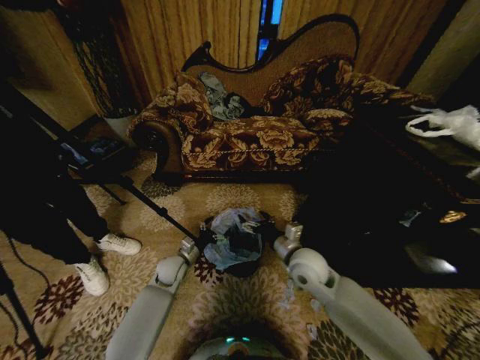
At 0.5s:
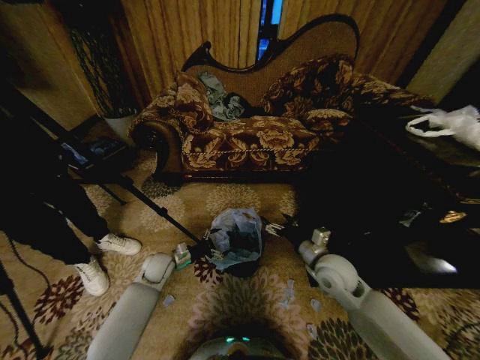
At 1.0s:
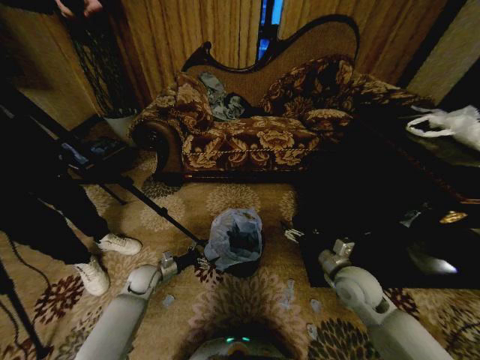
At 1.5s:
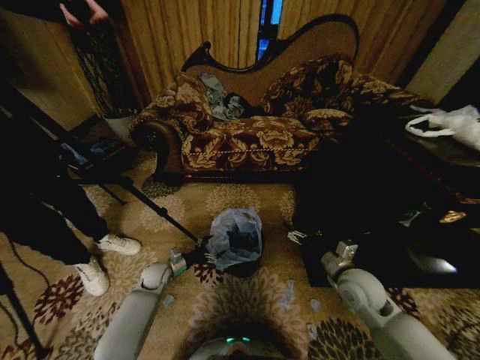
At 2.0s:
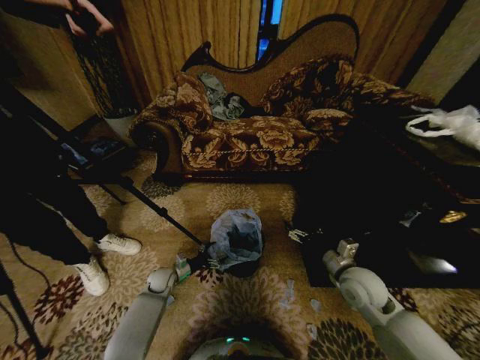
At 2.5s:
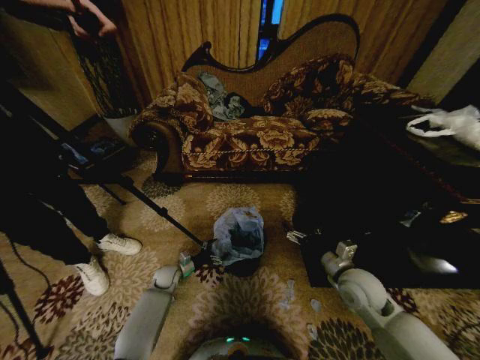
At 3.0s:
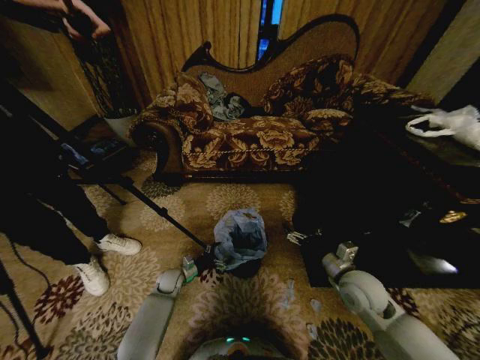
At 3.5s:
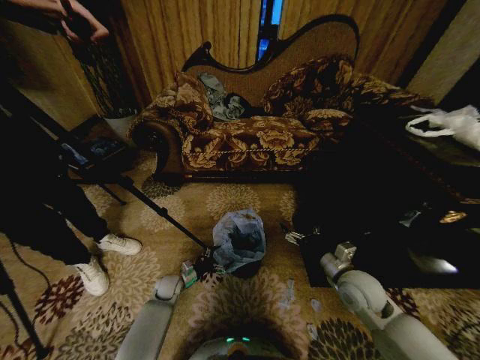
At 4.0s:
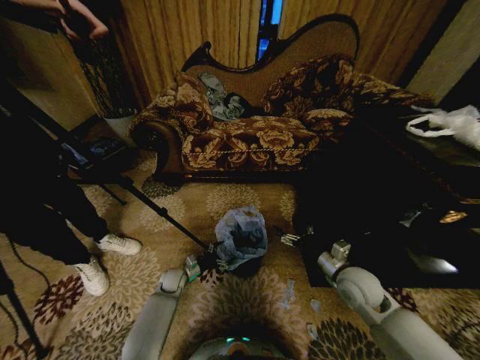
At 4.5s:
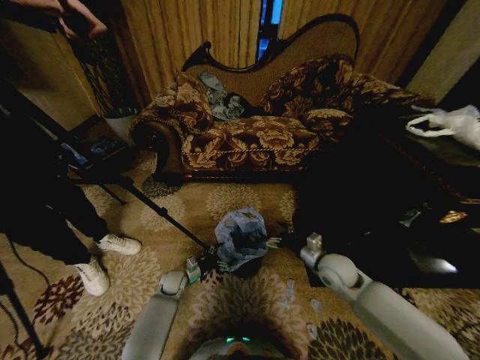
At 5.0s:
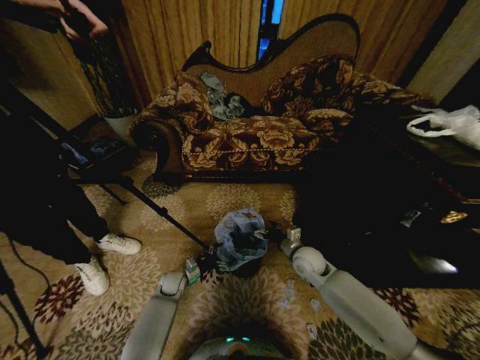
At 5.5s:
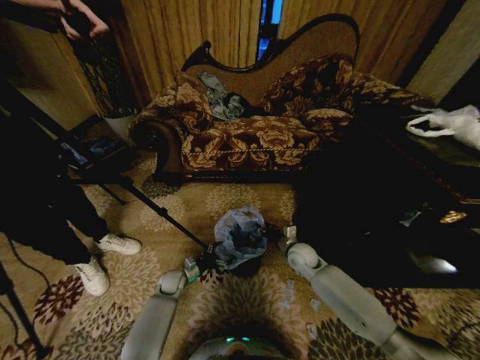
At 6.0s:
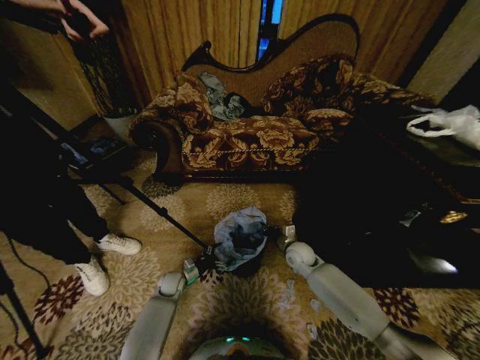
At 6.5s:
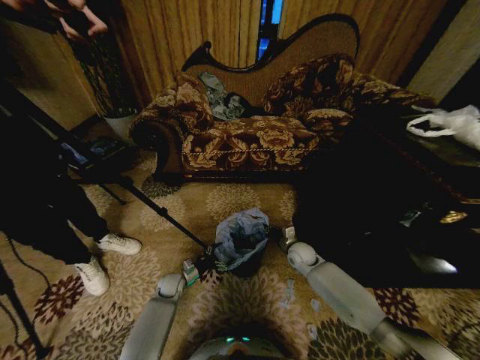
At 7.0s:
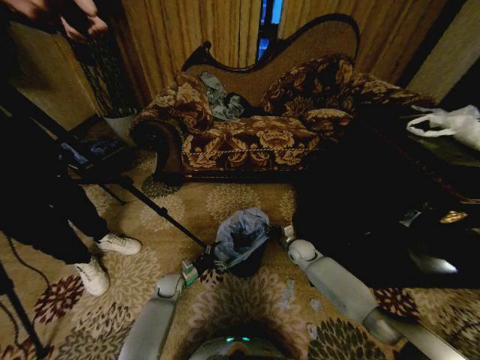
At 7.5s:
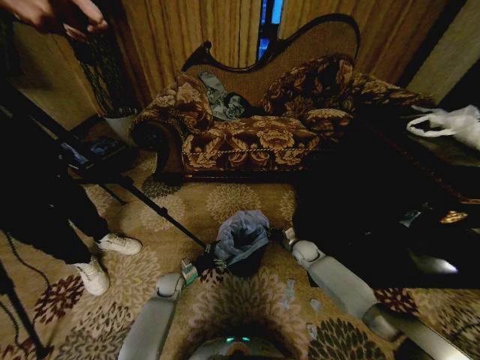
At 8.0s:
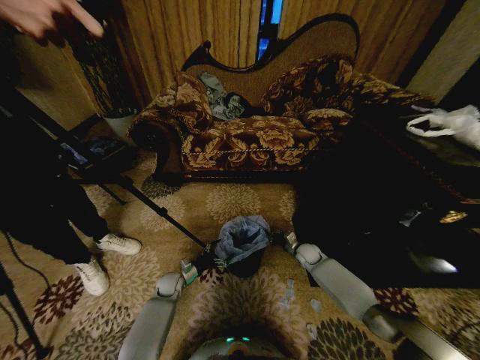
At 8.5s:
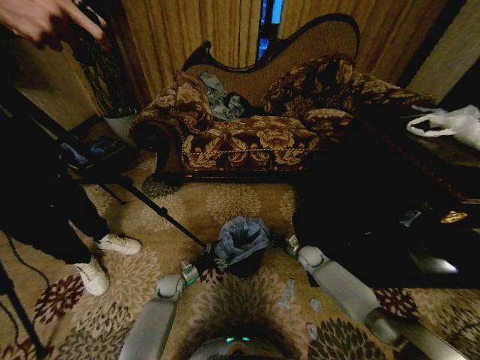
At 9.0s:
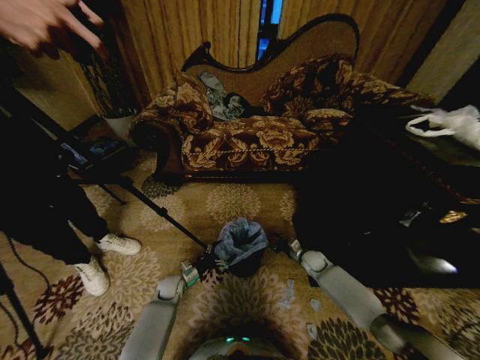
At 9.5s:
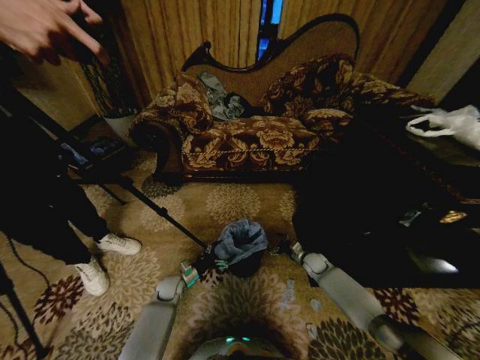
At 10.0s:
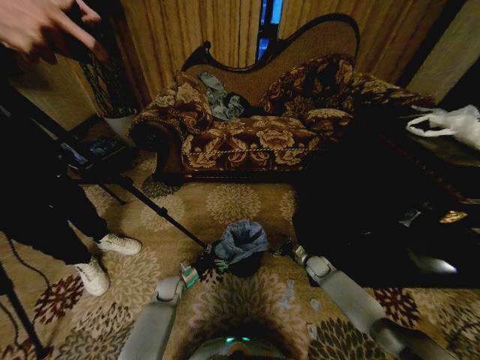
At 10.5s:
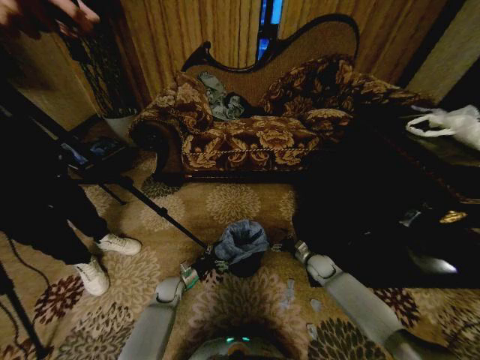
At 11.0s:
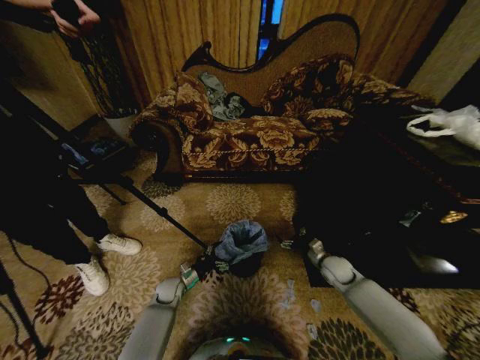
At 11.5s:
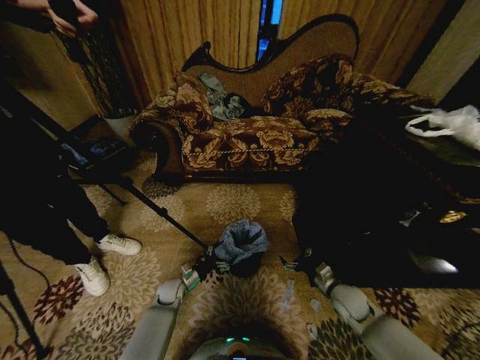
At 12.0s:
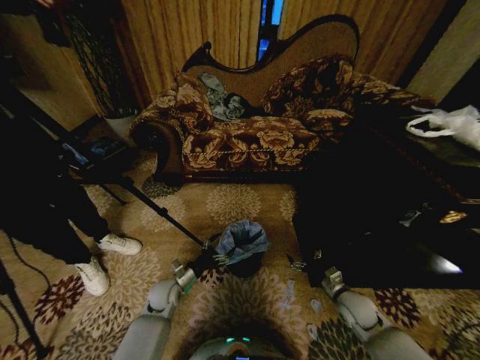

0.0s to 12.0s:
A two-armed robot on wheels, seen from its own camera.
Task of the whole recording: Place a garbage bag over the trash bin.
0.0s to 2.0s: The left gripper travels downward and to the left by approximately 10 cm, while the right gripper heads to the right, covering about 15 cm.
2.0s to 4.0s: There are only small adjustments of the grippers.
4.0s to 6.0s: The right gripper travels forward, to the left and downward by some 20 cm, and closes up.
6.0s to 8.0s: The right gripper moves downward and to the right, roughly 10 cm.
8.0s to 10.0s: The right gripper changes place by about 5 cm, and opens its fingers.
10.0s to 12.0s: The right gripper heads backward and upward, covering roughly 20 cm; the left gripper heads upward, covering roughly 10 cm.

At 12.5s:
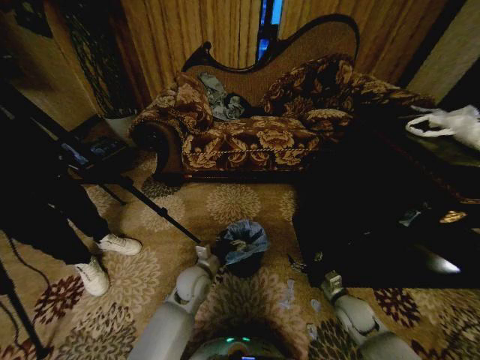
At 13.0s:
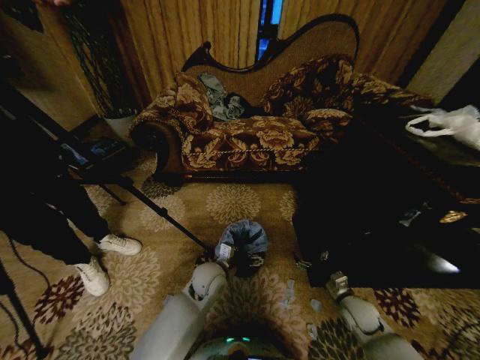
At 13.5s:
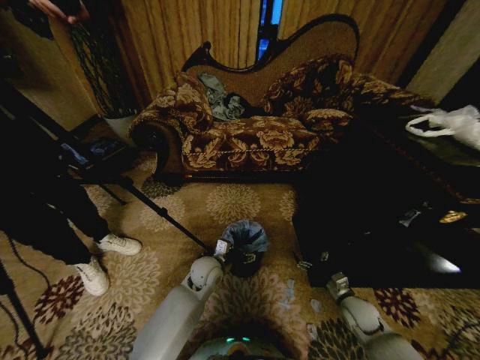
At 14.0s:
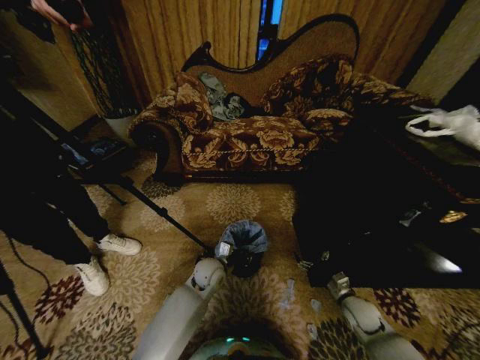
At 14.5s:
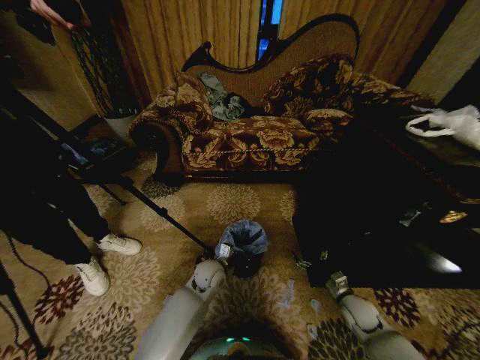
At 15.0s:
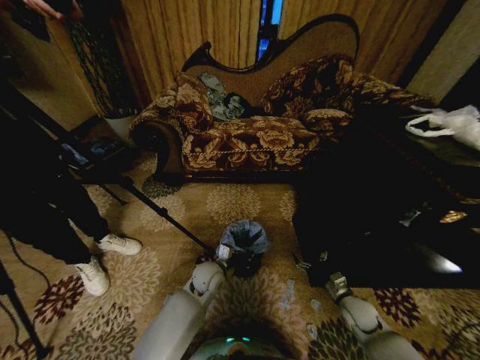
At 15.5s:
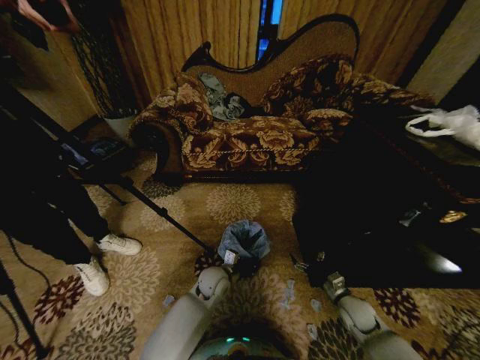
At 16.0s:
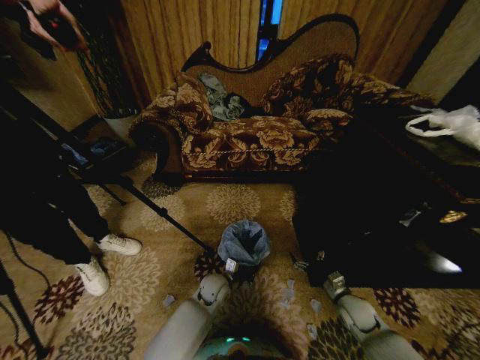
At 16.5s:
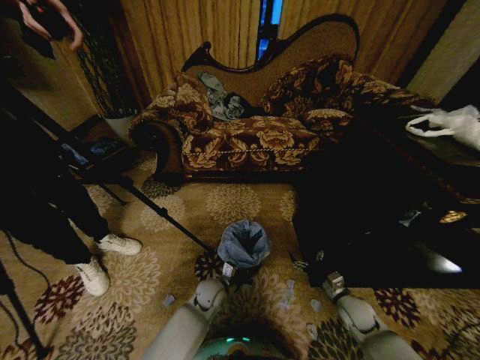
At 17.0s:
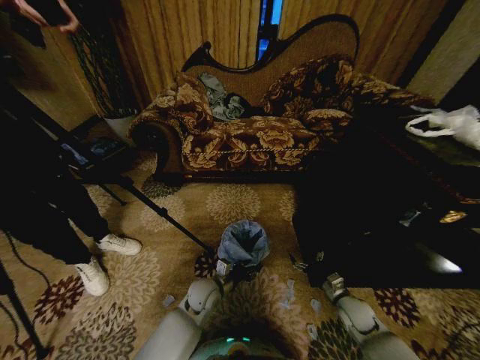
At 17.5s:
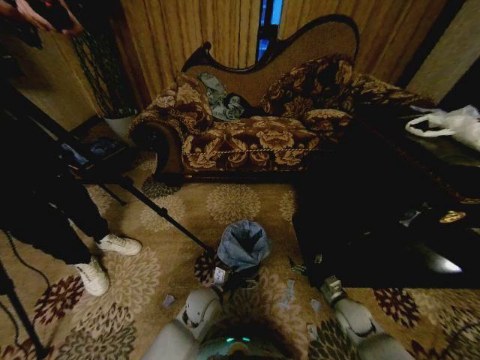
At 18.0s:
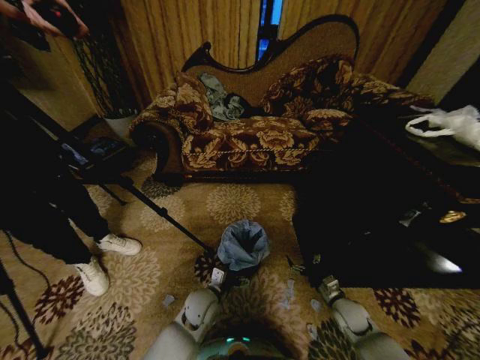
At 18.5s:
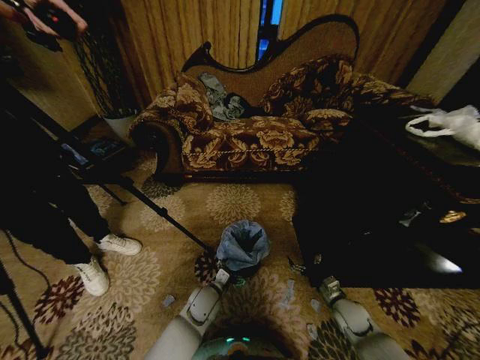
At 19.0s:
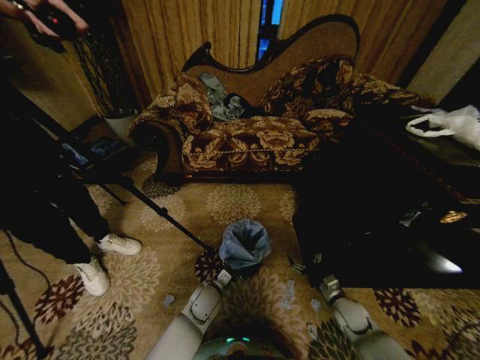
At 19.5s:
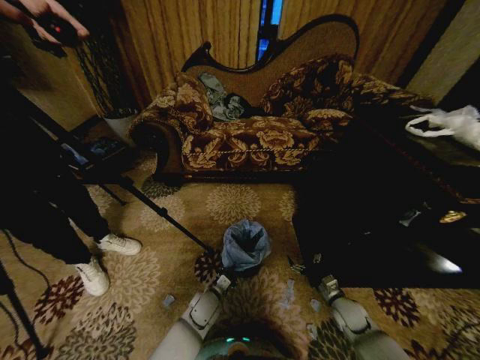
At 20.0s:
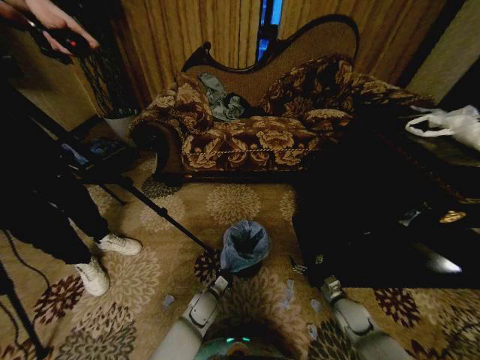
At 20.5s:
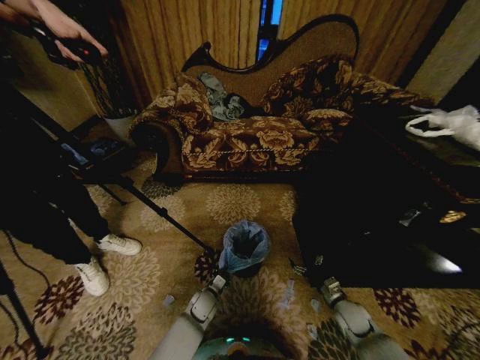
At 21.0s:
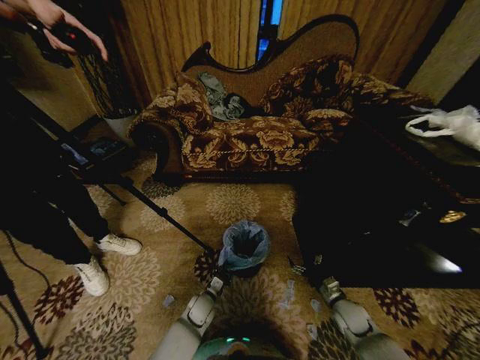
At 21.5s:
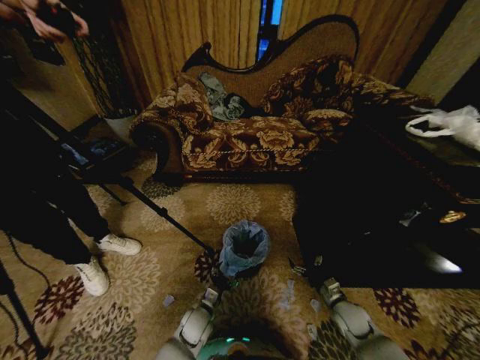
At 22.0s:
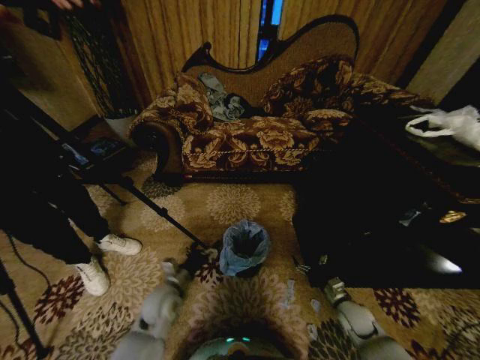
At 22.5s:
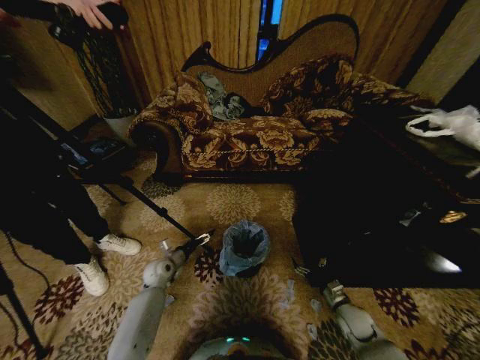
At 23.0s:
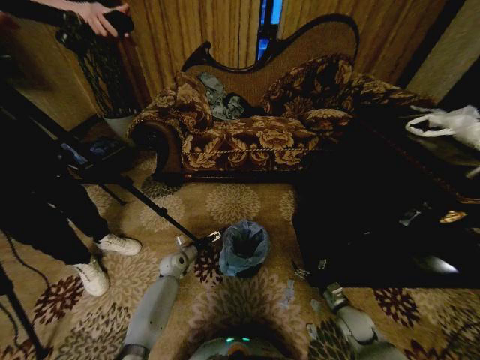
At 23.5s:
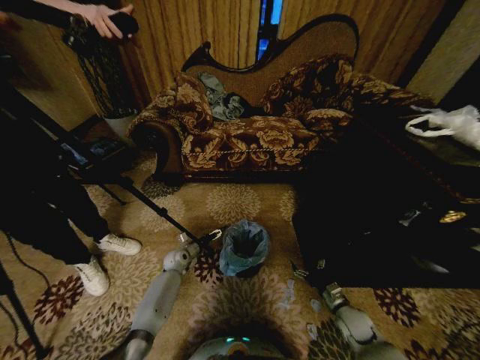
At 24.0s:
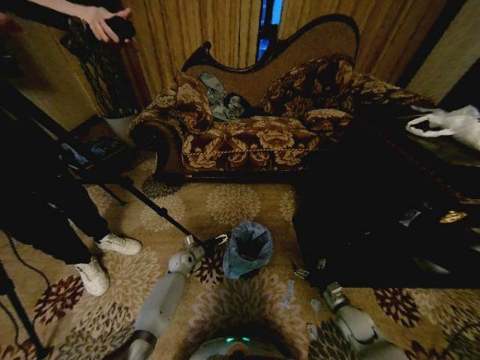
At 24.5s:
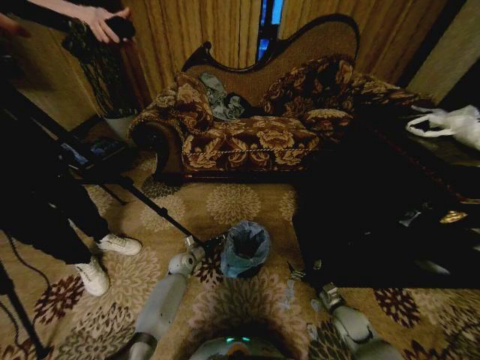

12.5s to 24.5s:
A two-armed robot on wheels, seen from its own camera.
Task of the whole recording: Place a garbage bag over the trash bin.
12.5s to 14.5s: The left gripper shifts by some 5 cm, and closes its fingers.
14.5s to 16.5s: The left gripper travels downward by approximately 5 cm.
16.5s to 18.5s: The left gripper opens up.
18.5s to 20.5s: The left gripper shifts approximately 10 cm downward, and closes.
20.5s to 22.5s: The left gripper shifts some 20 cm to the left, upward and forward, and opens its fingers.
22.5s to 24.5s: The left gripper heads downward, forward and to the right, covering approximately 10 cm, and closes its fingers.

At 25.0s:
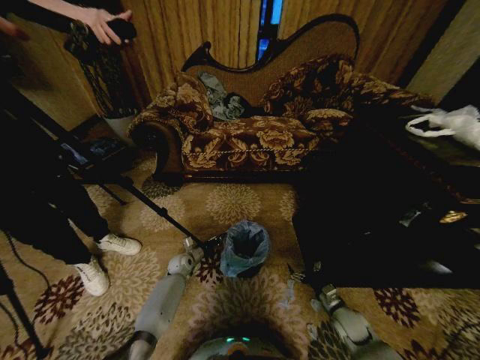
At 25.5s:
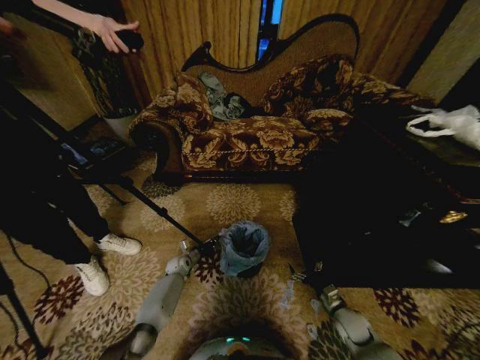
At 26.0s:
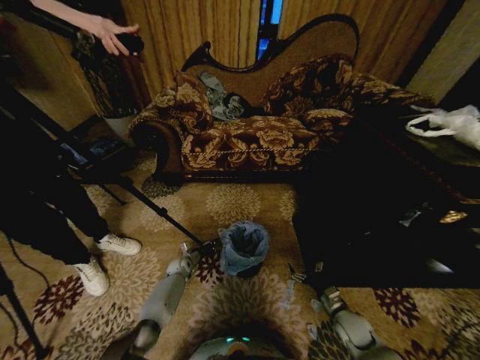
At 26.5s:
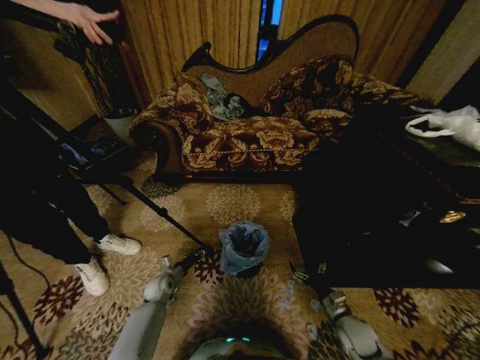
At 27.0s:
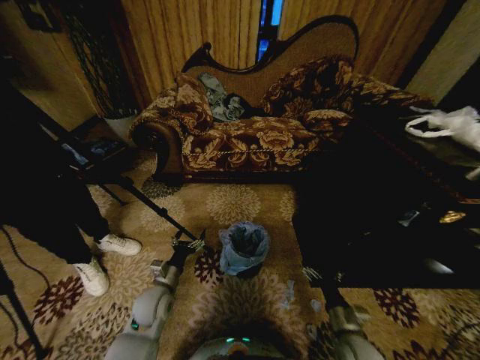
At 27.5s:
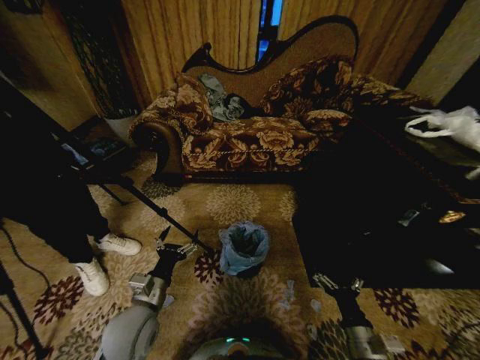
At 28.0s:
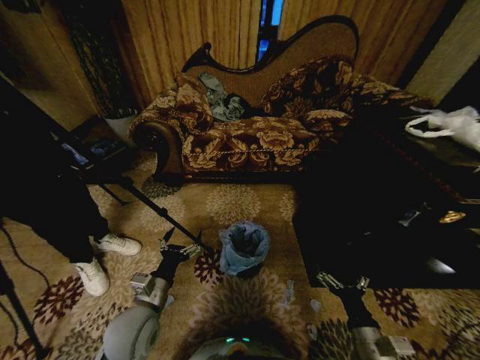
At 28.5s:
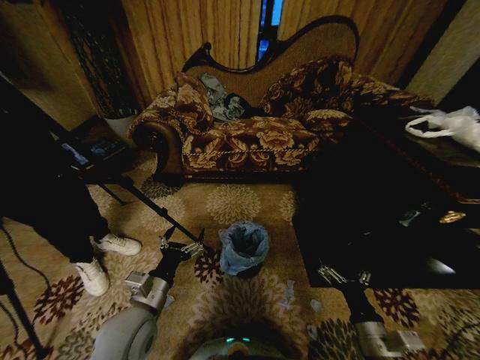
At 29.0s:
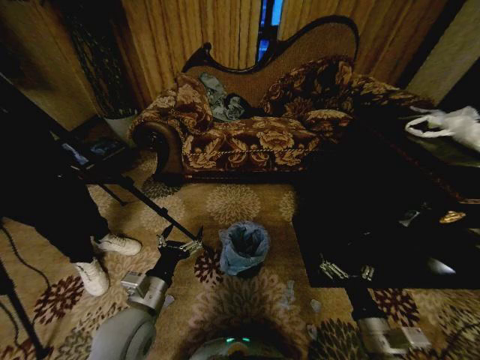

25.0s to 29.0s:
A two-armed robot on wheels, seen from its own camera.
Task of the whole recording: Place a garbage bag over the trash bin.
25.0s to 27.0s: The left gripper heads backward and upward, covering about 20 cm, and opens up. The right gripper goes roughly 15 cm backward, upward and to the left.
27.0s to 29.0s: The right gripper shifts some 10 cm upward; the left gripper goes some 15 cm upward and backward.
